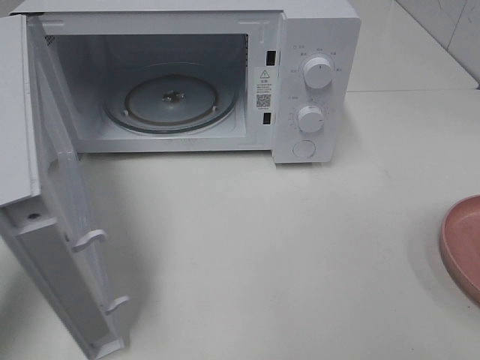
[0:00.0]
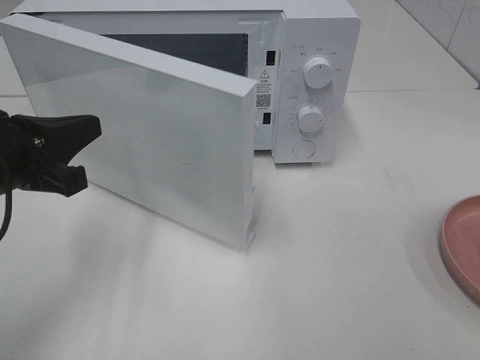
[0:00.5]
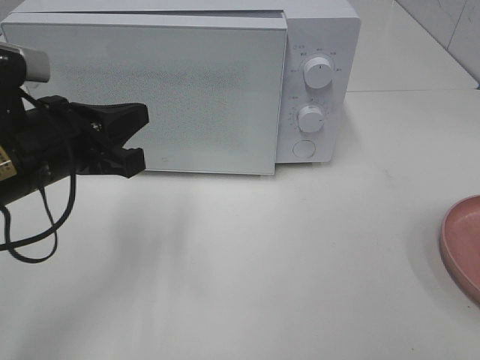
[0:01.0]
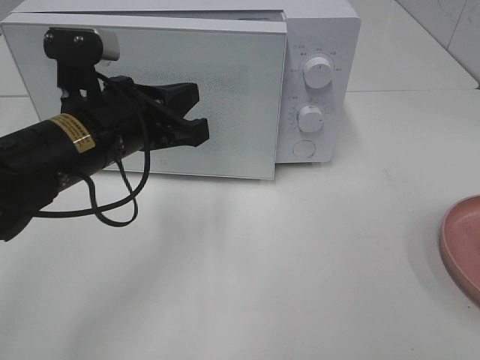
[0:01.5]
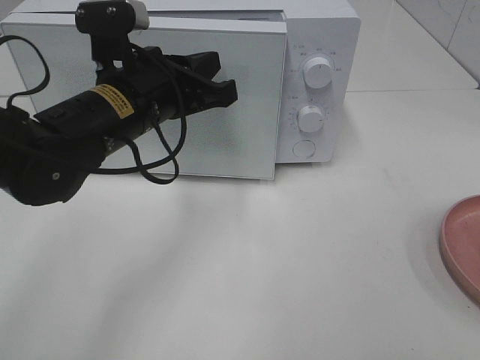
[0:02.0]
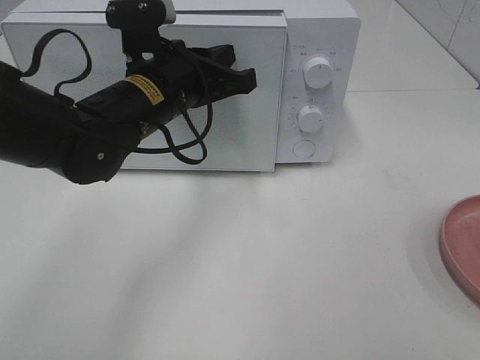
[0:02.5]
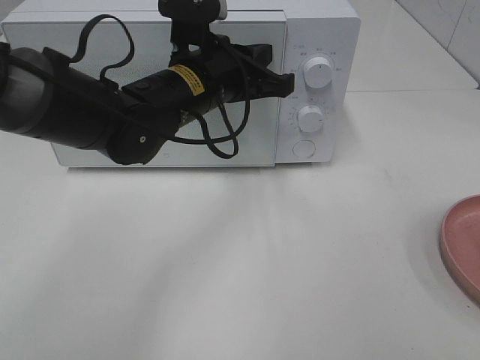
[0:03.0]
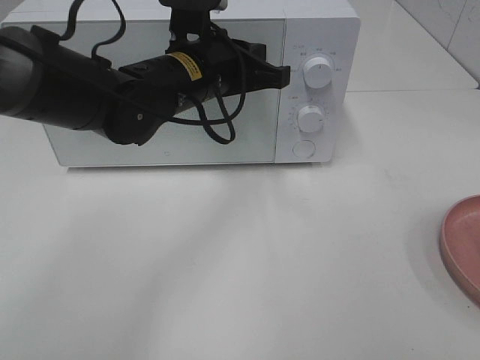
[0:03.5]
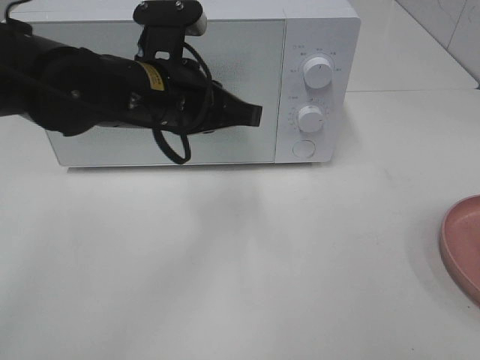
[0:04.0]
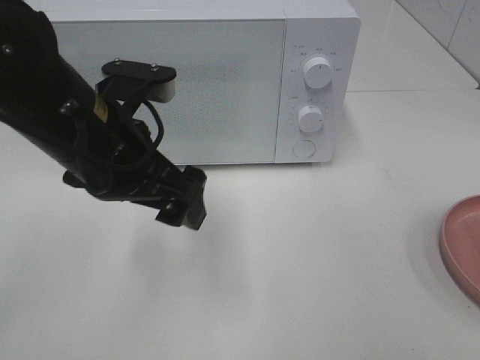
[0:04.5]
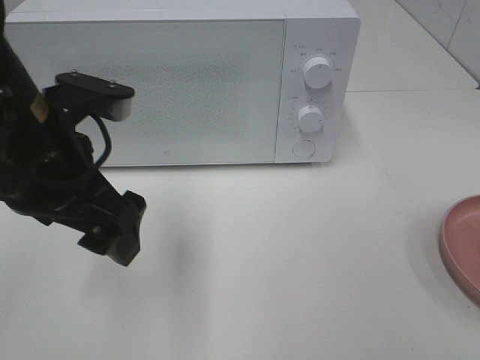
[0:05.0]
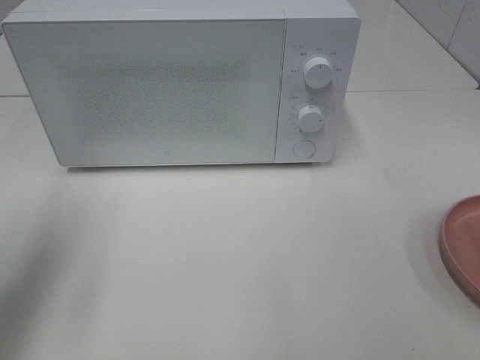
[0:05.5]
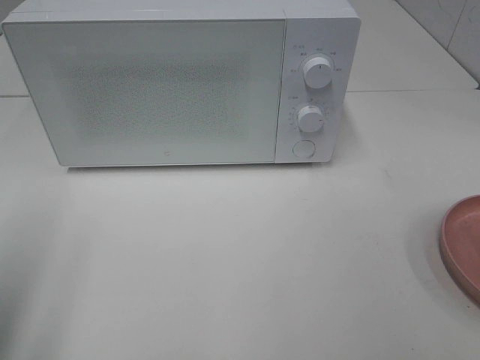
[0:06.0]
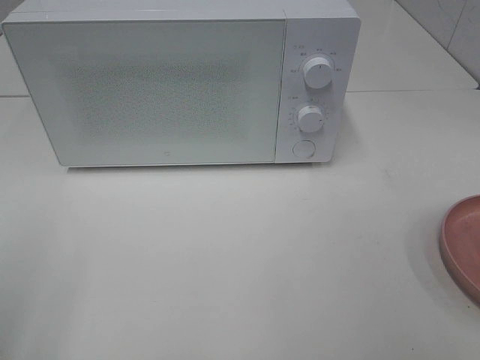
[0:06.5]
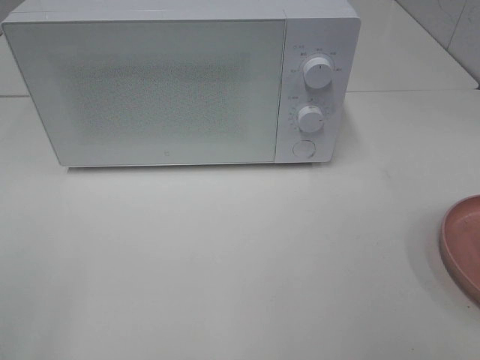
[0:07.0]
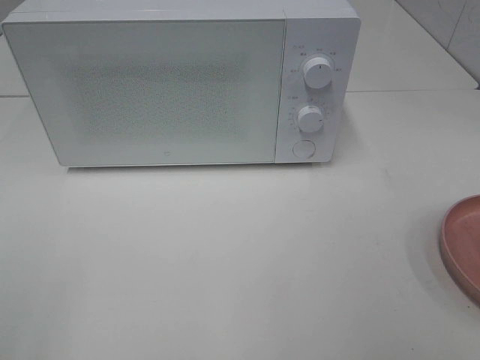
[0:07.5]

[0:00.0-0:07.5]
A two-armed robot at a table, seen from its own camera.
Task of the whole recording: Heat the burger.
Step, 0.0 to 3.5 s: Left hand: close the microwave door.
0.0 to 2.0 s: The left gripper travels to the right and forward by approximately 20 cm.
4.0 to 5.5 s: The left gripper is displaced to the left by approximately 20 cm, and opens up.
5.5 to 7.5 s: The left gripper heads backward, covering approximately 20 cm.

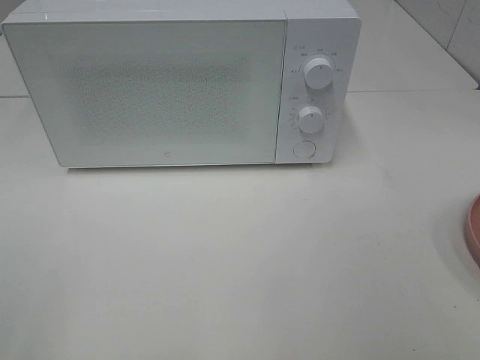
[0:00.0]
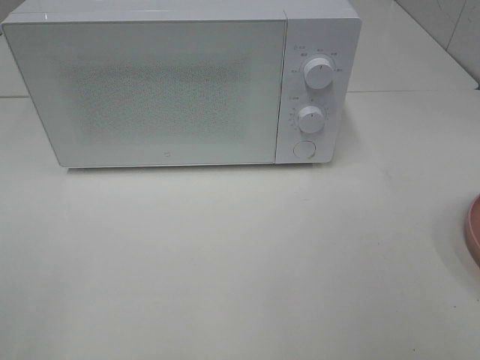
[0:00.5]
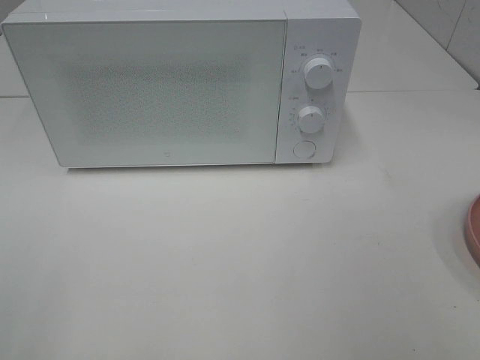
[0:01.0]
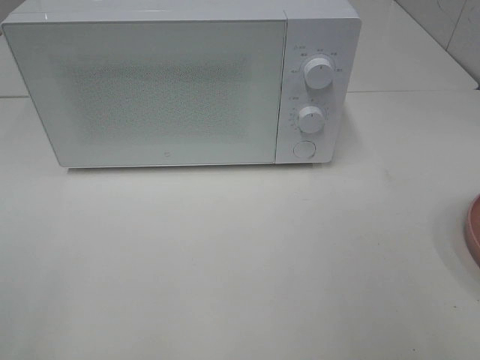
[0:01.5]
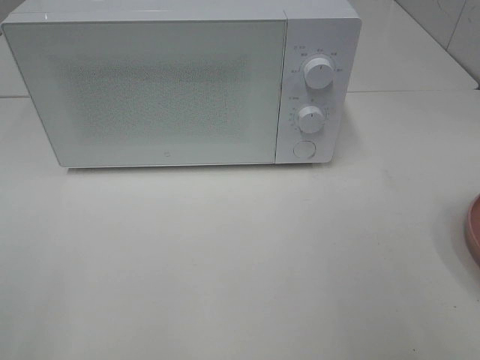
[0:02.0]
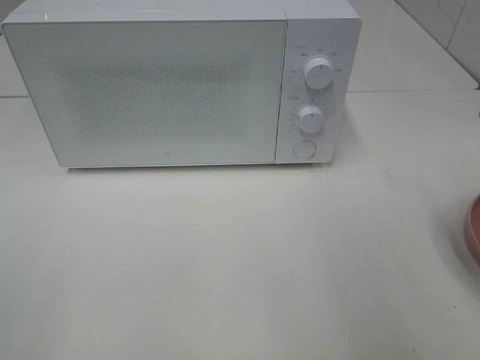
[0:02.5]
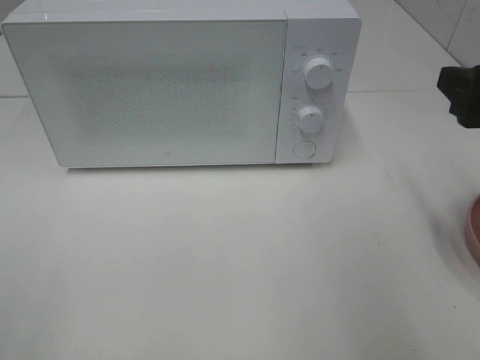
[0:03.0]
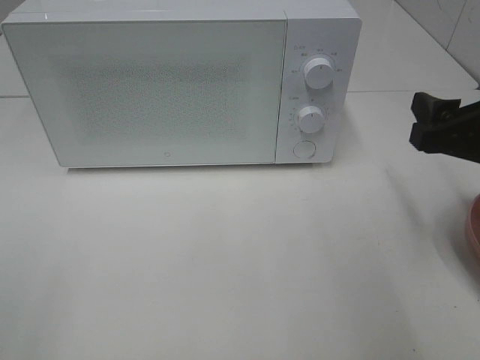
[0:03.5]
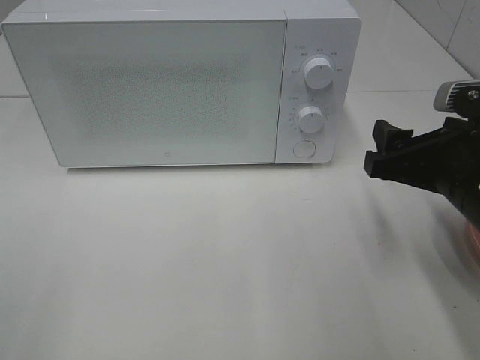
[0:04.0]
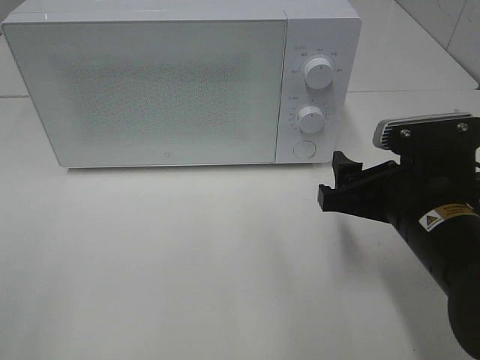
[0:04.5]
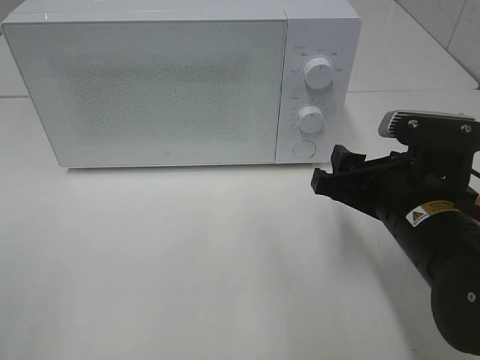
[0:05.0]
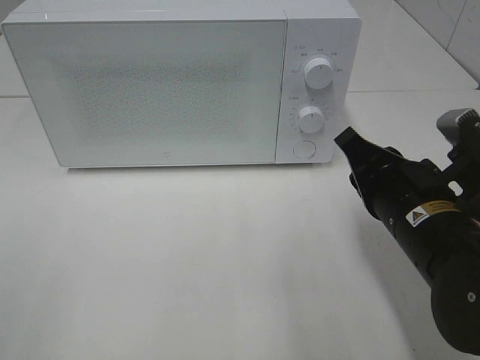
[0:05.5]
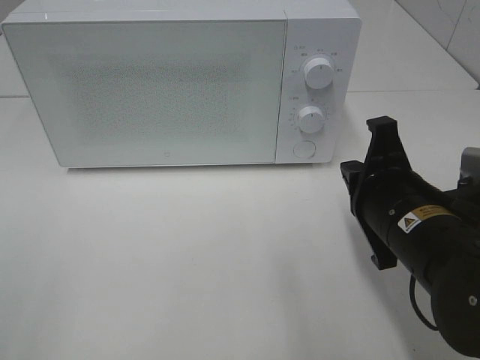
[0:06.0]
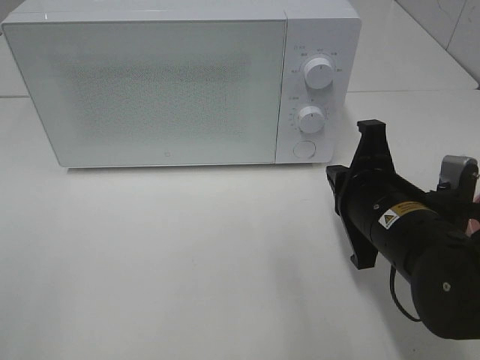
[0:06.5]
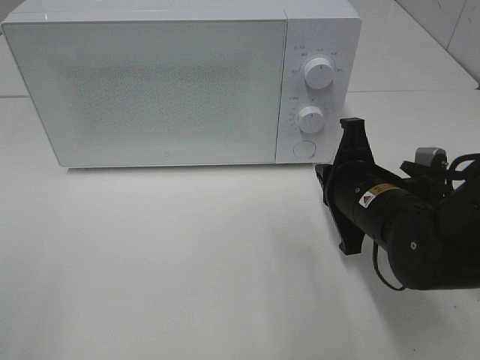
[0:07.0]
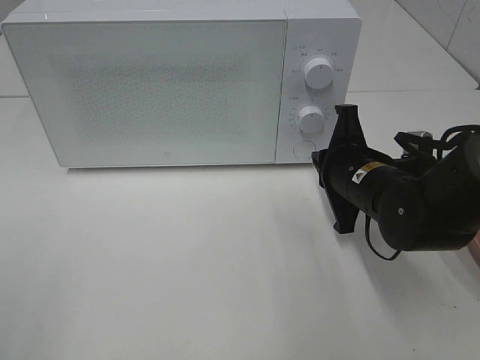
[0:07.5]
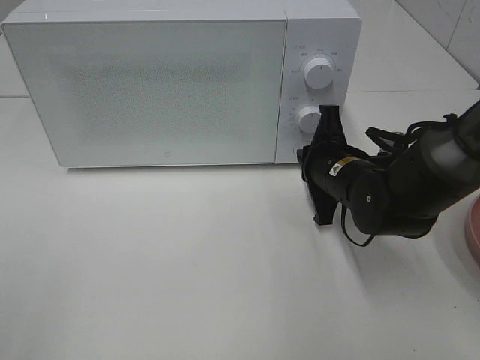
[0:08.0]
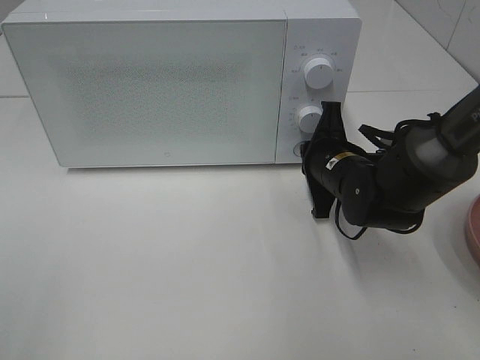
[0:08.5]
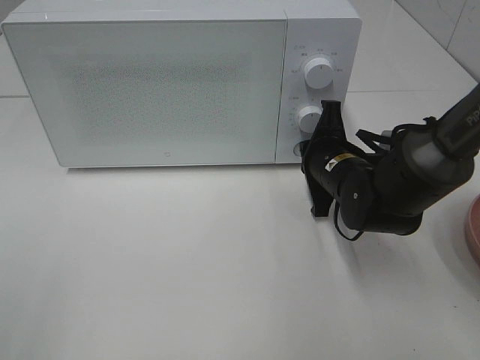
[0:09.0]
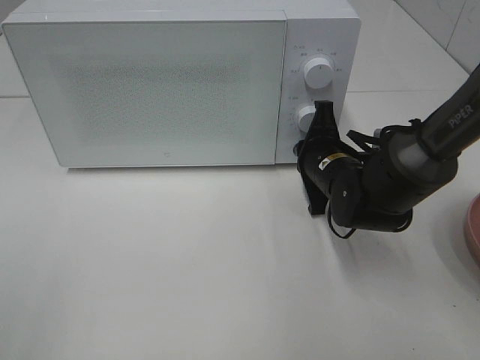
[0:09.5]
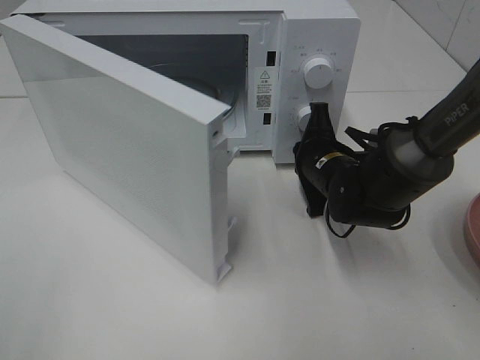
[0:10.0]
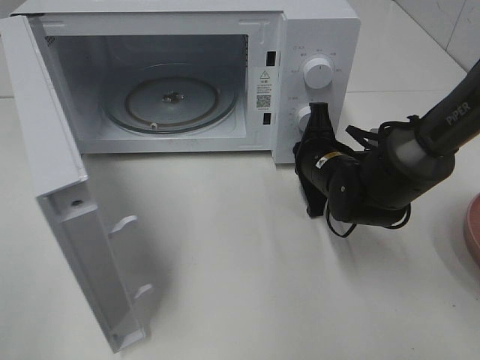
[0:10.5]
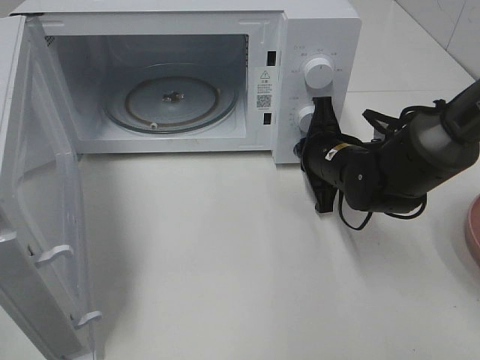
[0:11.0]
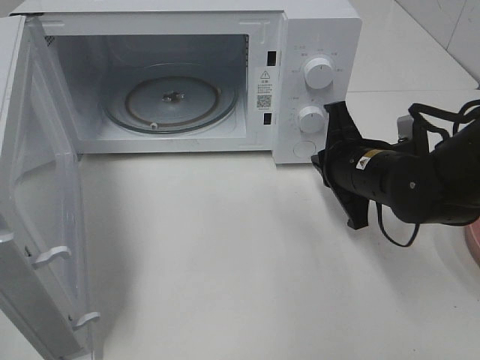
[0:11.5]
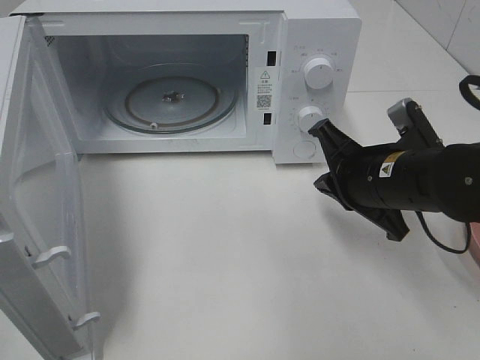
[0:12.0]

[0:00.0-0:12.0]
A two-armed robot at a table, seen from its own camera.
Task of the whole recording: Heat the burger.
Step, 0.0 to 11.0 s: Right hand: press the switch.
2.0 to 4.0 s: The right gripper travels forward, downward and to the left by approximately 15 cm.
4.0 to 6.0 s: The right gripper shifts roughly 5 cm to the left, and closes up.
6.0 to 8.0 s: The right gripper heads forward and downward, covering some 15 cm.
10.0 to 12.0 s: The right gripper travels backward and upward by some 10 cm.

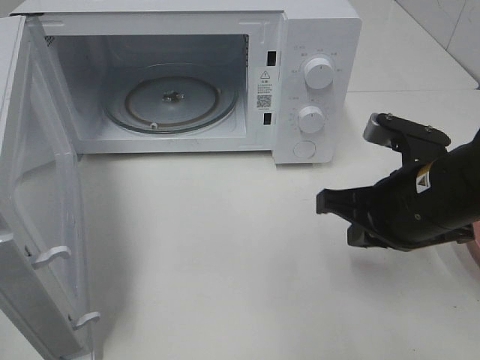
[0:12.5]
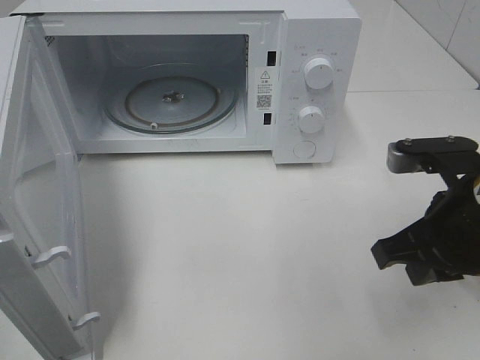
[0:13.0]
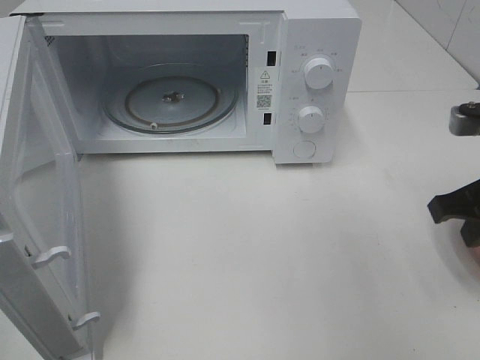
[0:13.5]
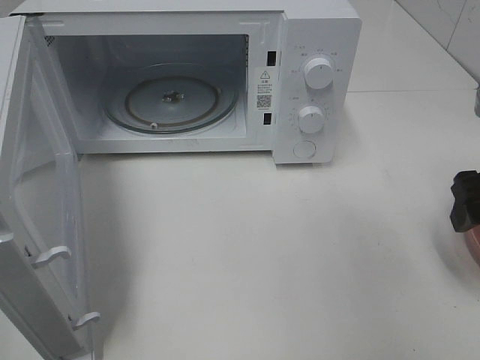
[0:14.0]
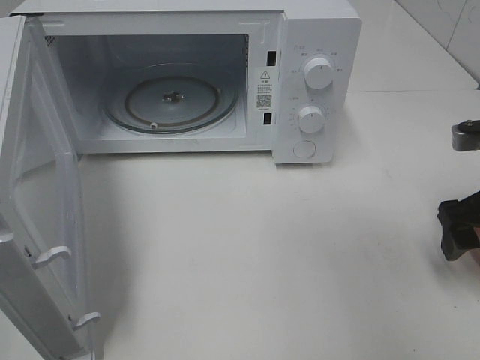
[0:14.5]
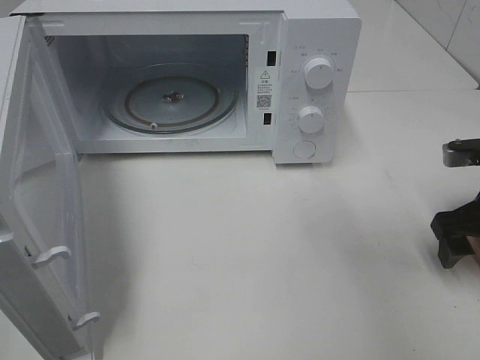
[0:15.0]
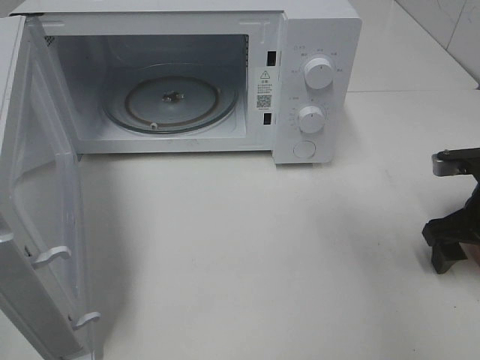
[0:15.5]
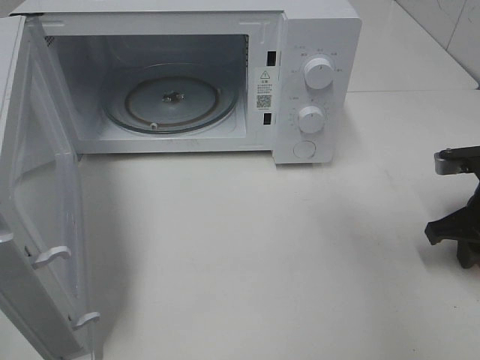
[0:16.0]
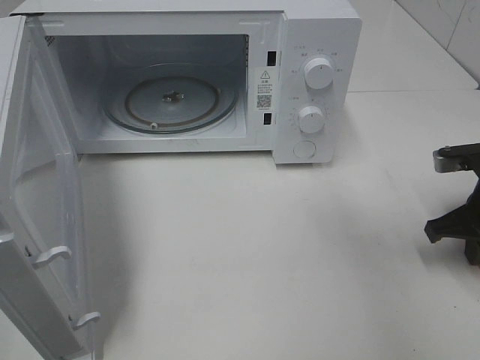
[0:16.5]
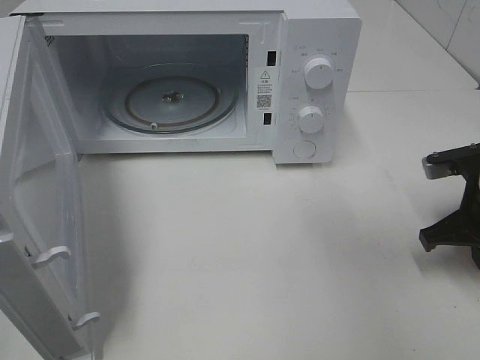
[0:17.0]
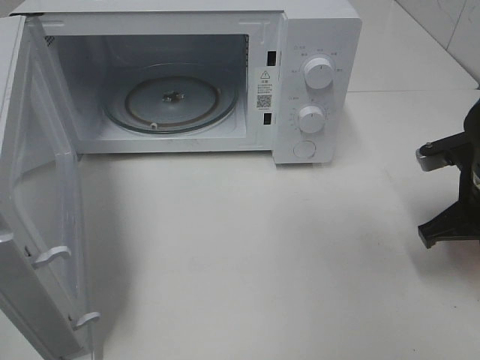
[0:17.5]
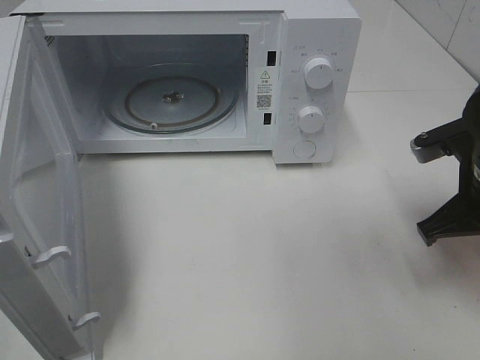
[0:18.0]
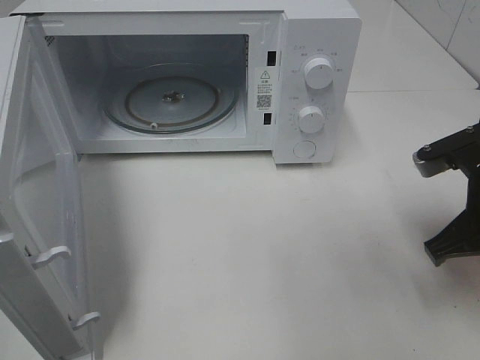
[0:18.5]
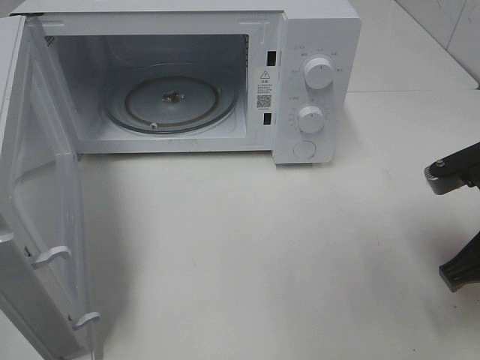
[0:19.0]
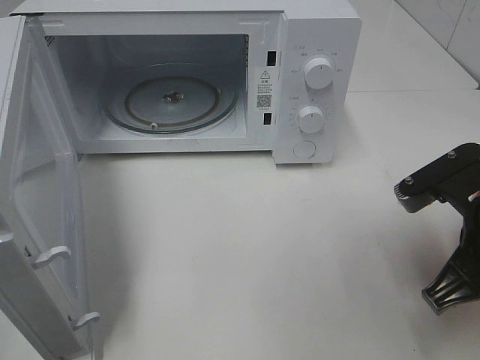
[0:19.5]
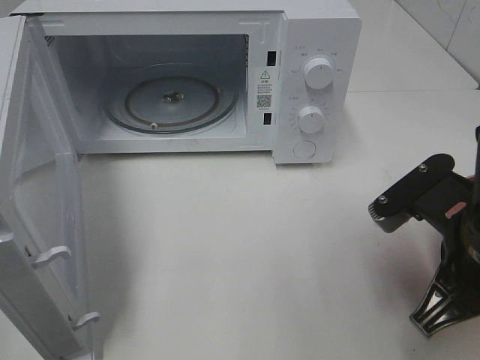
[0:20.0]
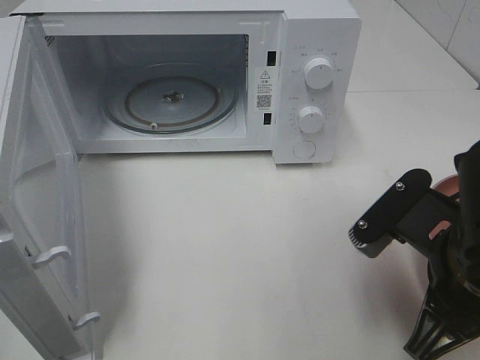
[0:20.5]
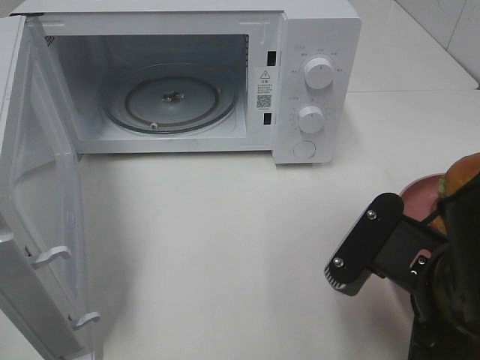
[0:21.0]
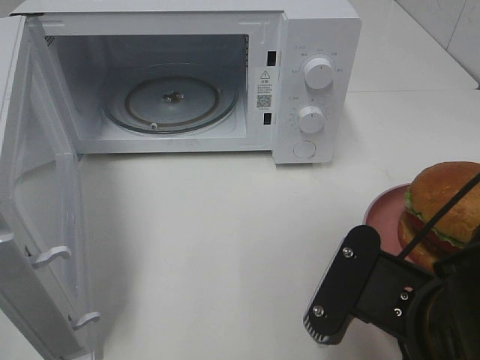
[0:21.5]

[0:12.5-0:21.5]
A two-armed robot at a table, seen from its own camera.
Task of the whole recording: Heat the burger.
Step, 12.5 to 16.0 s: Right hand: grab the plate with the hamburger.
12.5 to 14.5 s: The right gripper goes about 10 cm to the right, and opens up.
14.5 to 17.0 s: The right gripper shifts some 5 cm downward, and closes up.
17.0 to 19.5 s: The right gripper moves backward, to the left and upward, roughly 15 cm.
19.5 to 21.5 s: The right gripper travels backward and to the left by about 10 cm.
